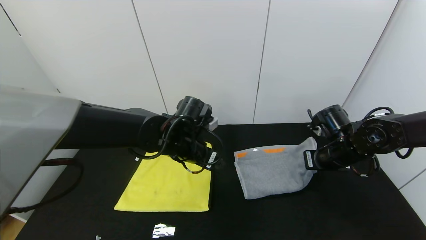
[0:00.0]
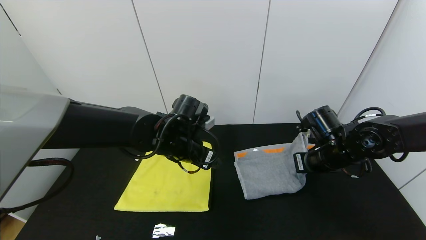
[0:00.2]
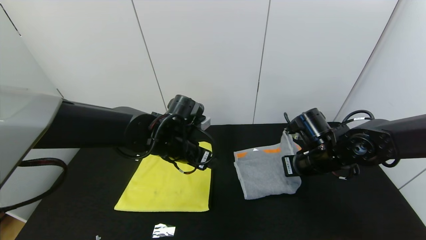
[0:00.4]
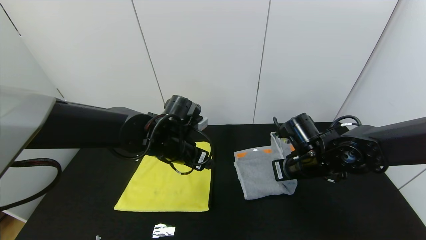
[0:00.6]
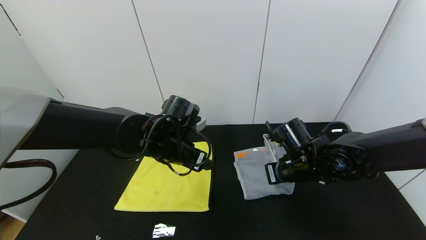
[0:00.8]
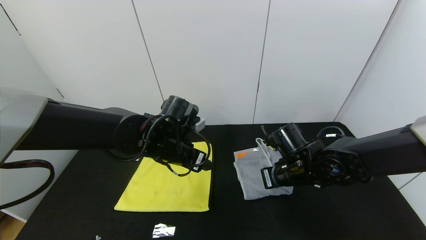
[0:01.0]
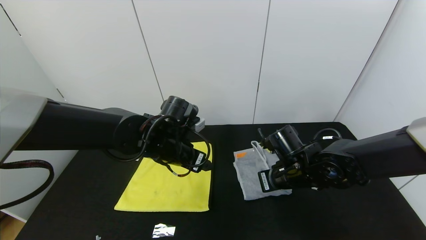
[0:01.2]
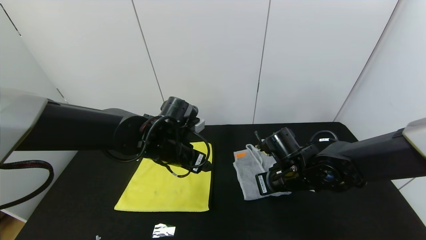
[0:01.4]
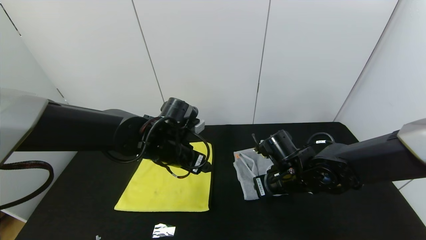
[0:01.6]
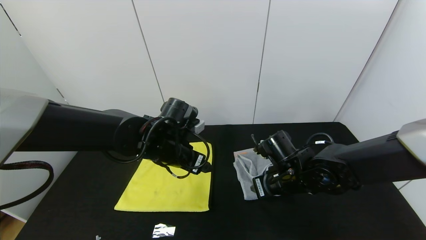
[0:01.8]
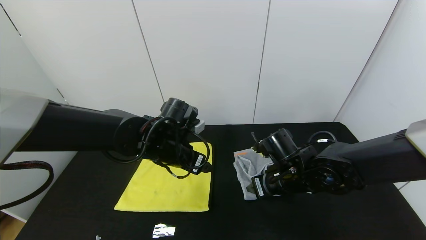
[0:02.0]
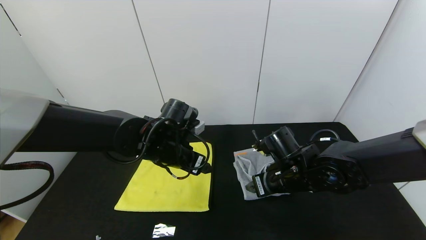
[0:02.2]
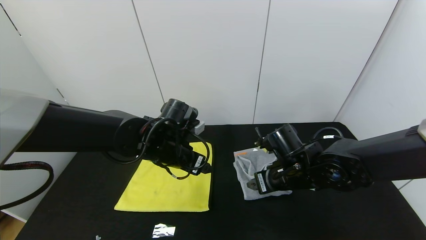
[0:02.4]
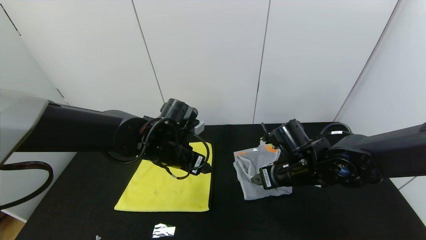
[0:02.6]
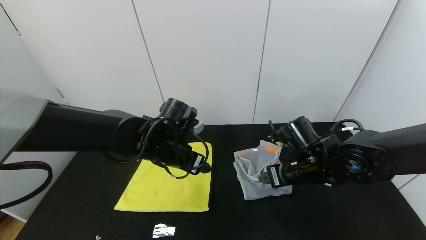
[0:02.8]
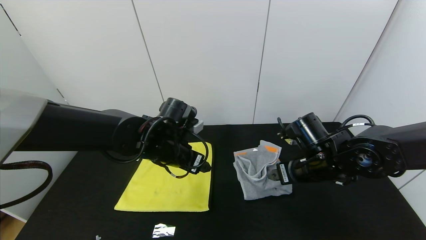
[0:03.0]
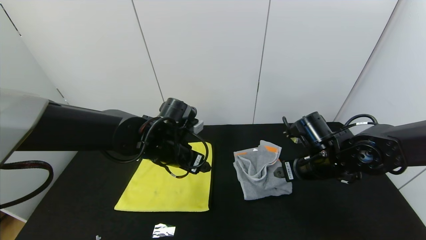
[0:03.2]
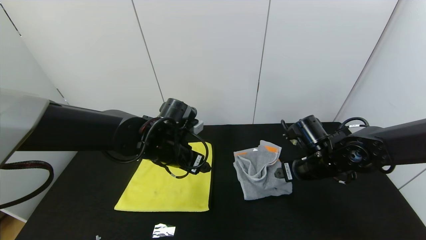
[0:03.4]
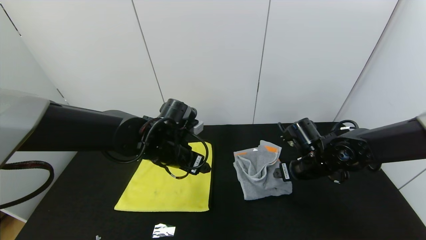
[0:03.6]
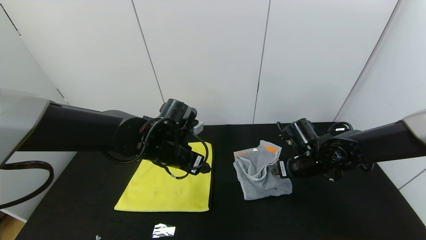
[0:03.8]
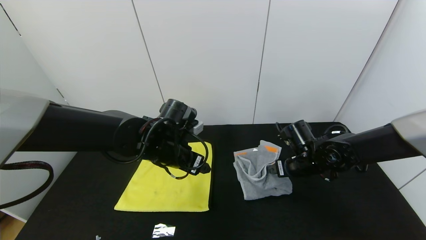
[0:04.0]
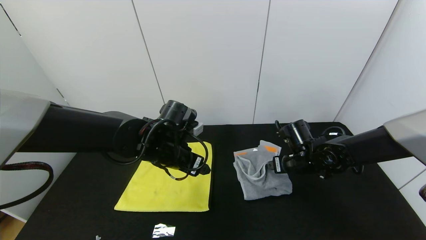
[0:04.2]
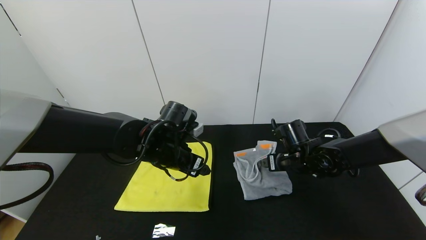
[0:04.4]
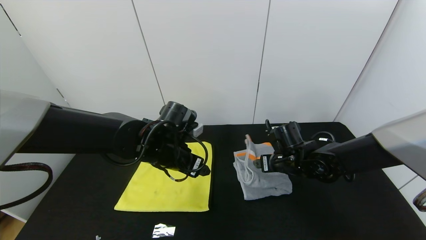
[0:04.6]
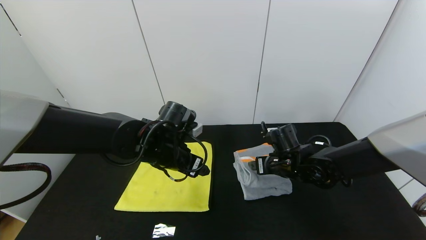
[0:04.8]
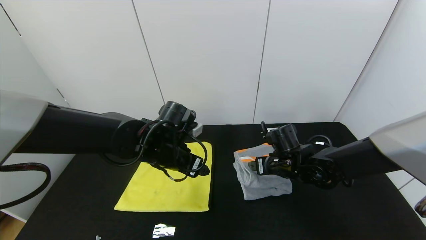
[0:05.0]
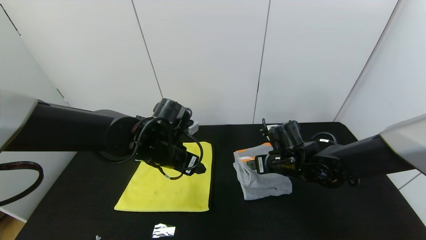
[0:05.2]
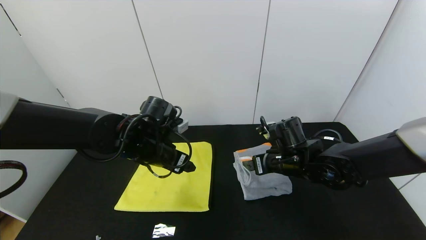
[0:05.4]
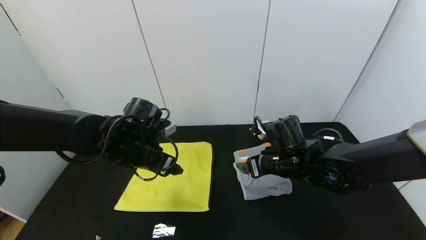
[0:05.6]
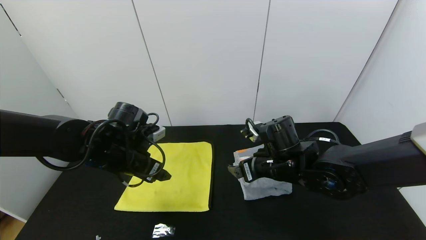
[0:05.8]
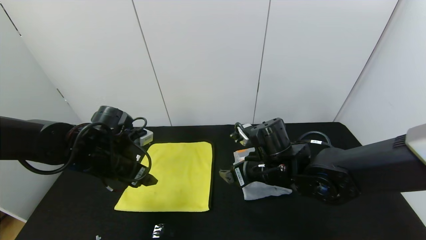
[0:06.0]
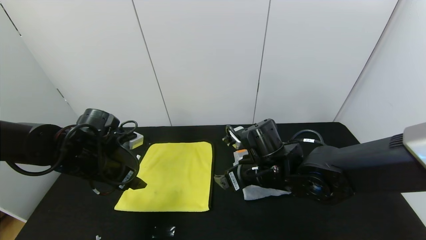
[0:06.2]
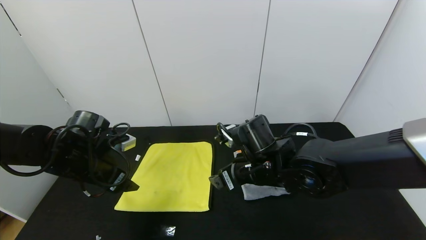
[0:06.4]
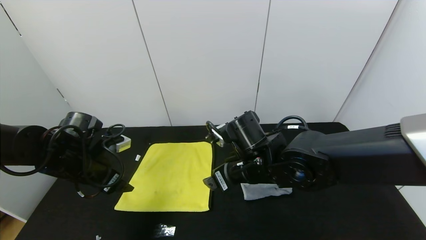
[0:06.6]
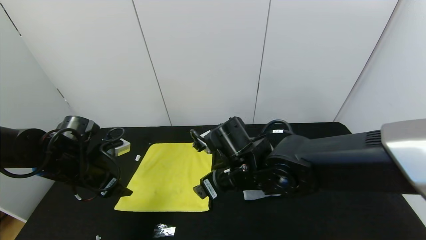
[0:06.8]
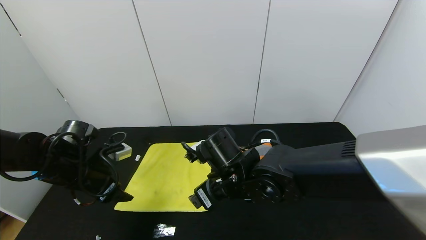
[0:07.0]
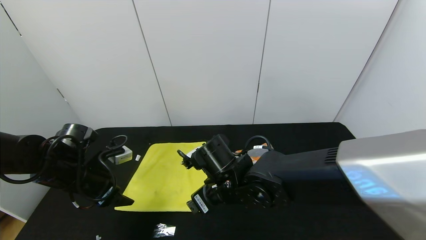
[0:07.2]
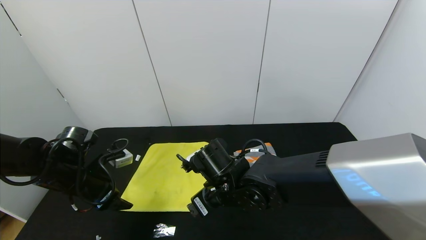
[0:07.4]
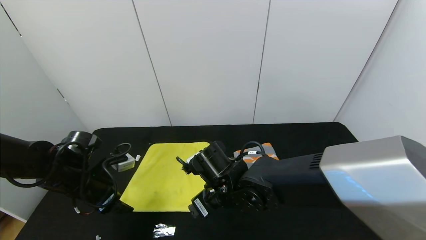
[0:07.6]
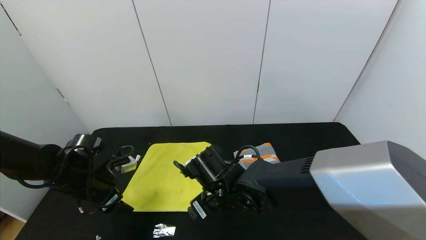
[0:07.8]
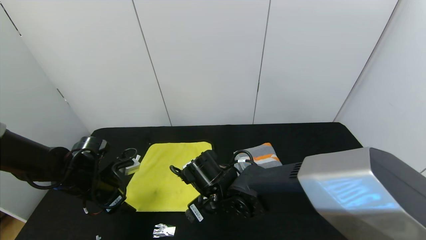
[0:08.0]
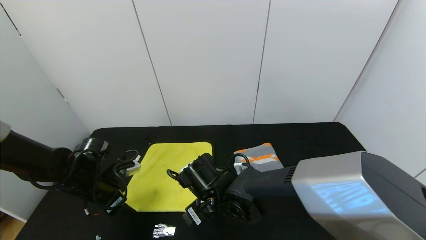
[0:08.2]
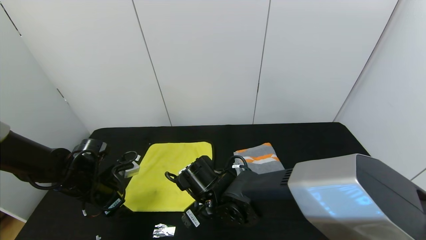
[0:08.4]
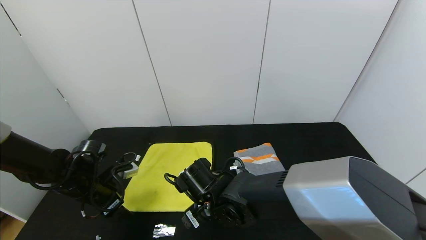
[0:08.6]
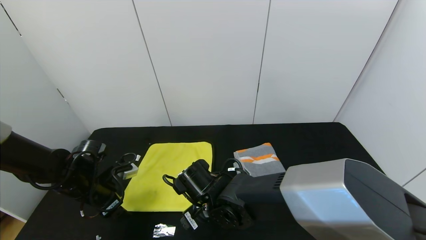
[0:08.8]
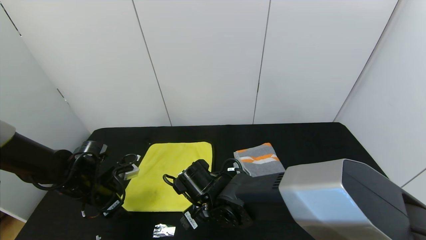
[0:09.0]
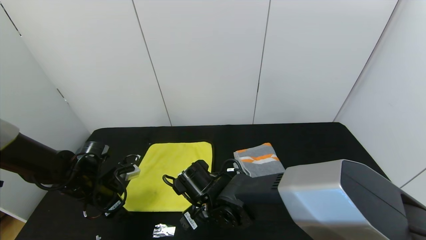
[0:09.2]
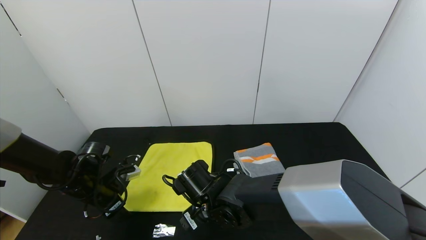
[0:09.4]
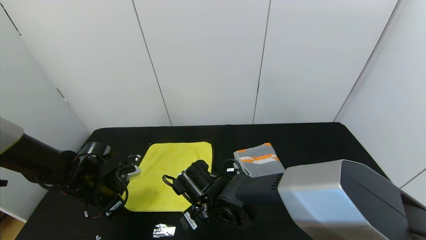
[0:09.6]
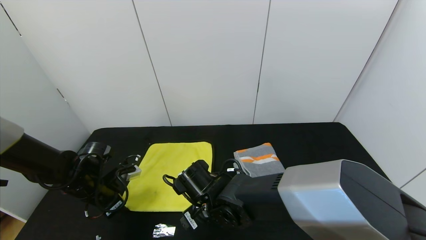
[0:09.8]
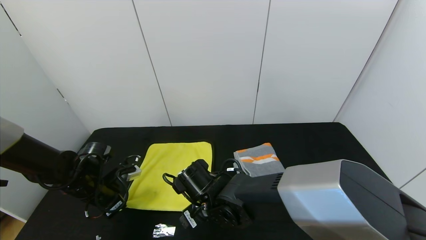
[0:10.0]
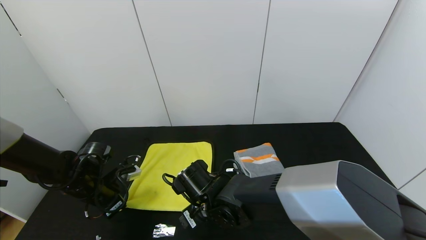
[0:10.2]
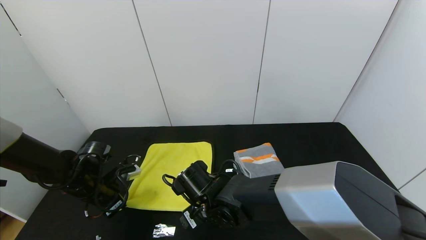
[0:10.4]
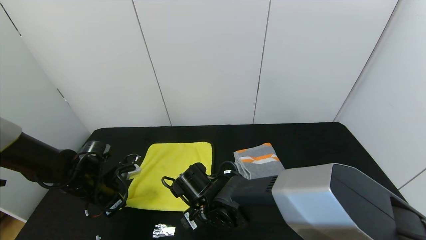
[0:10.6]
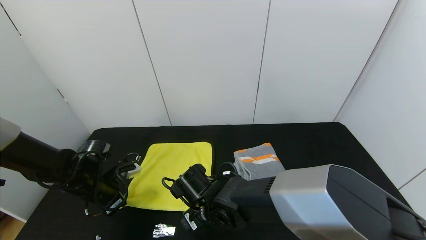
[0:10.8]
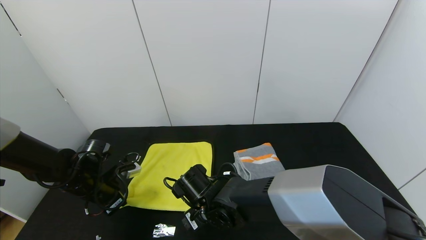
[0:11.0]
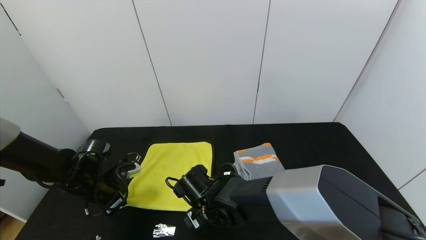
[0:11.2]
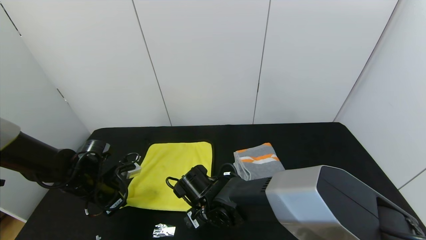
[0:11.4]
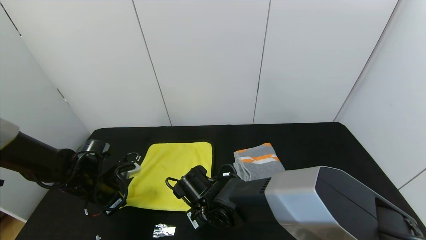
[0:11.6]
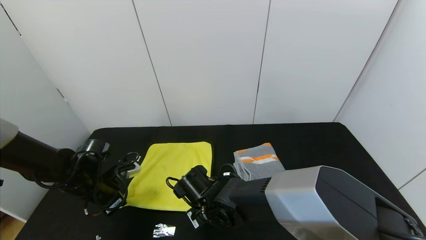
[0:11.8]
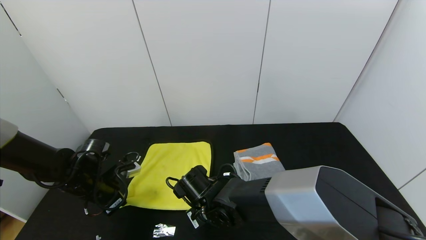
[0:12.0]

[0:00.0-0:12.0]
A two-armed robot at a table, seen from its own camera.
Task of the whole recording: Use the gripper to fold the yellow towel and grey towel in half twice,then put the yellow towel on the grey towel.
Step, 0:00.0 to 0:05.2: Fold the gray towel from right to left with right gripper.
0:00.0 to 0:01.6: The right gripper travels to the left by about 10 cm, and opens its fingers.
0:01.6 to 0:03.0: The right gripper changes place by about 5 cm, and opens up.
0:03.0 to 0:04.4: The right gripper moves forward and downward, some 10 cm.
0:04.4 to 0:06.0: The right gripper heads to the left and backward, covering some 10 cm; the left gripper goes approximately 10 cm to the left.
0:06.0 to 0:07.6: The right gripper heads to the left, covering some 10 cm. The left gripper shifts some 10 cm to the left and downward.
0:07.6 to 0:09.0: The right gripper changes place by about 5 cm.
0:09.0 to 0:10.4: The left gripper closes.
0:10.4 to 0:12.0: The right gripper closes.

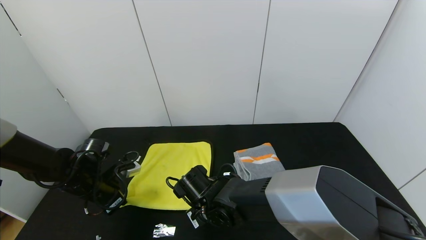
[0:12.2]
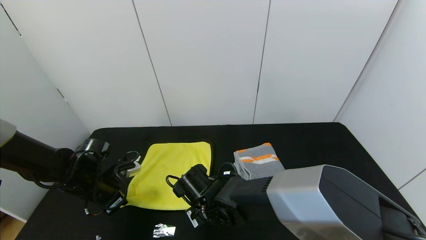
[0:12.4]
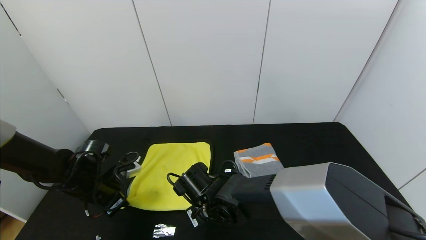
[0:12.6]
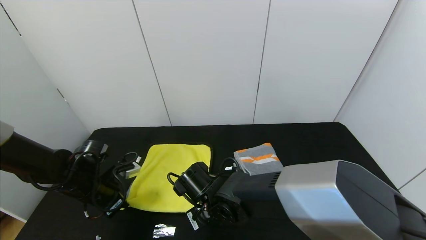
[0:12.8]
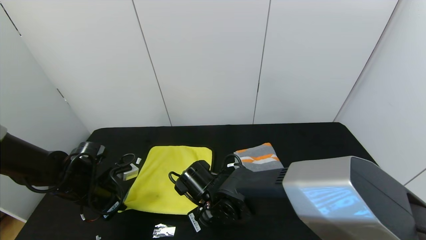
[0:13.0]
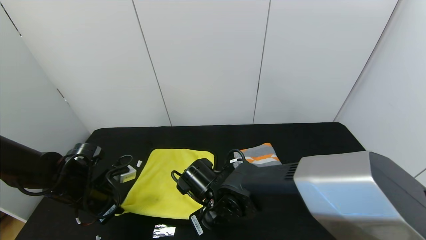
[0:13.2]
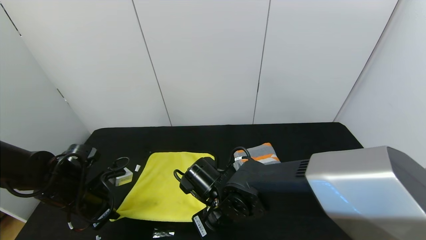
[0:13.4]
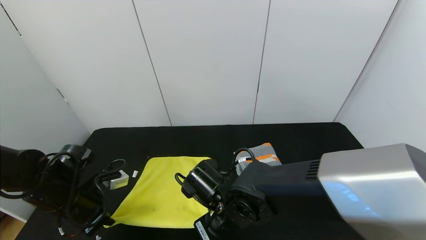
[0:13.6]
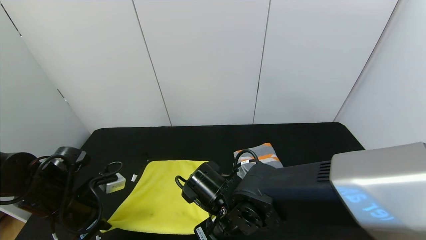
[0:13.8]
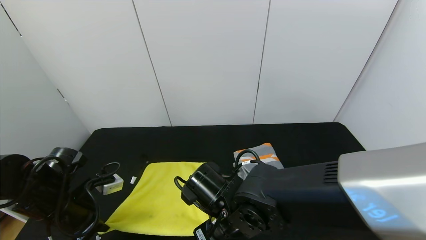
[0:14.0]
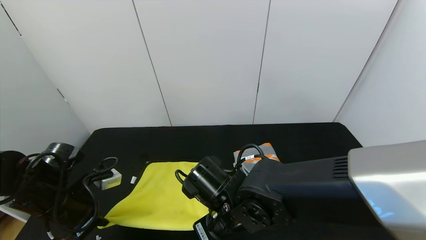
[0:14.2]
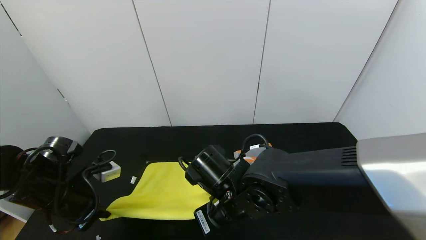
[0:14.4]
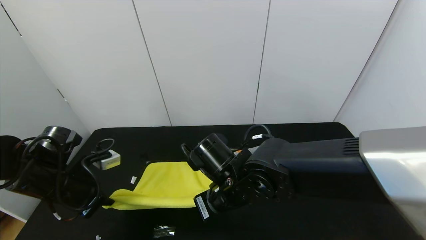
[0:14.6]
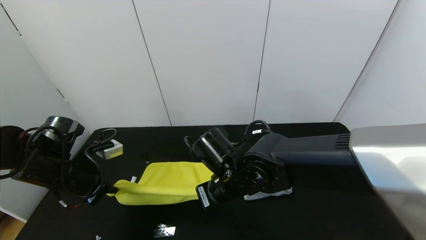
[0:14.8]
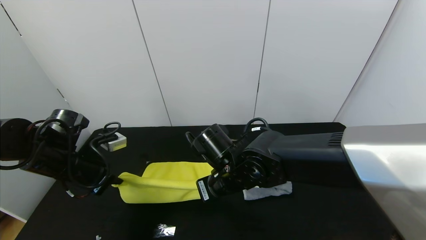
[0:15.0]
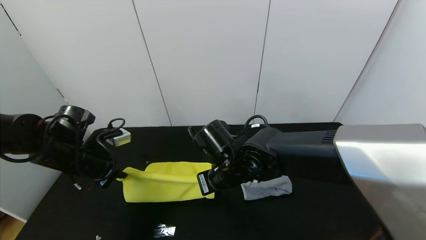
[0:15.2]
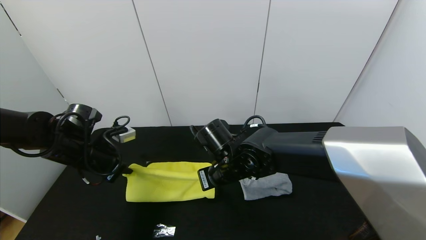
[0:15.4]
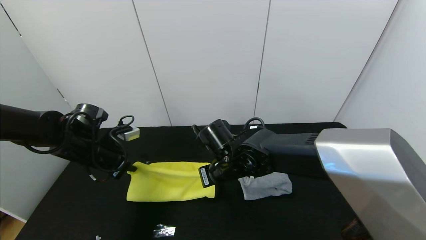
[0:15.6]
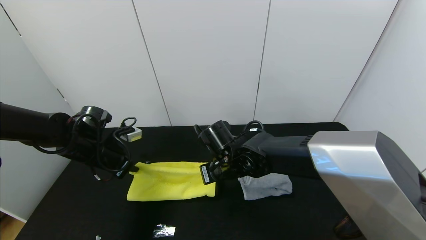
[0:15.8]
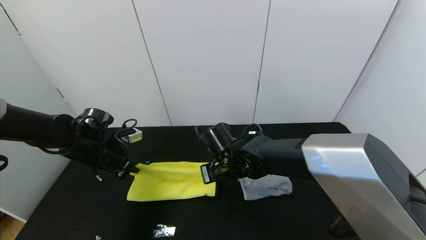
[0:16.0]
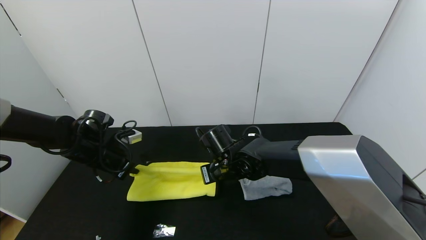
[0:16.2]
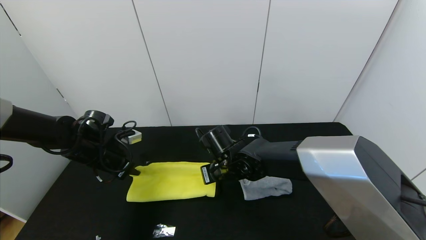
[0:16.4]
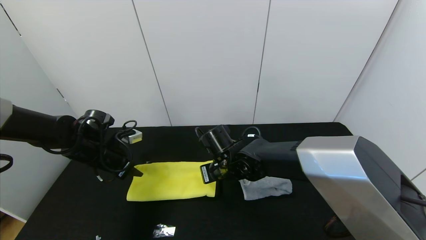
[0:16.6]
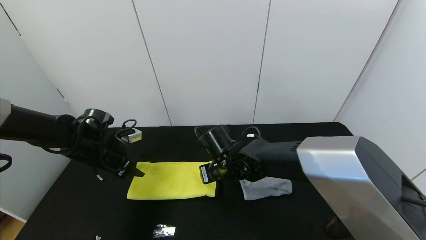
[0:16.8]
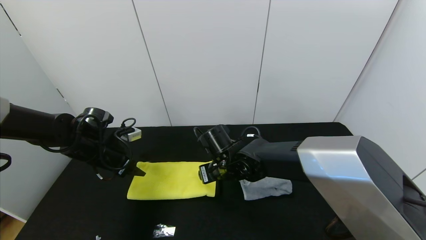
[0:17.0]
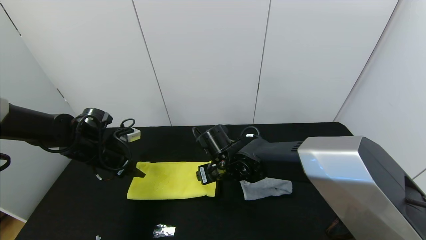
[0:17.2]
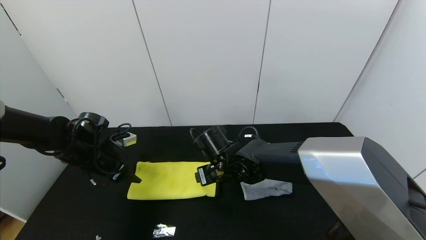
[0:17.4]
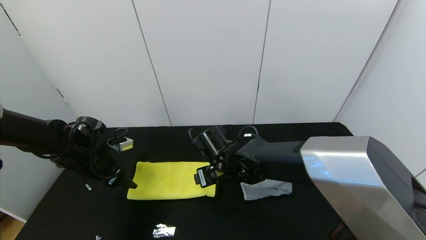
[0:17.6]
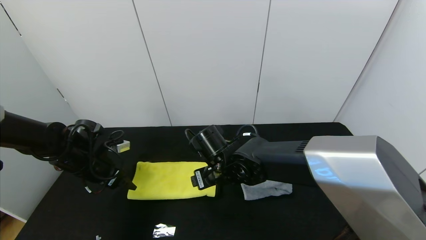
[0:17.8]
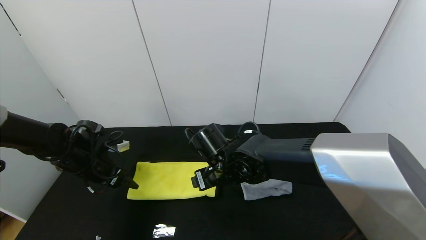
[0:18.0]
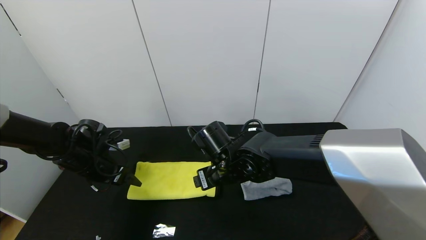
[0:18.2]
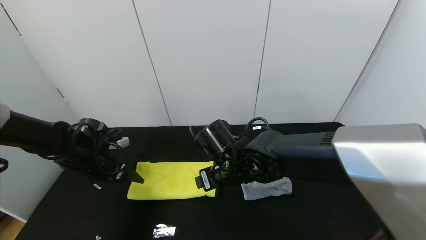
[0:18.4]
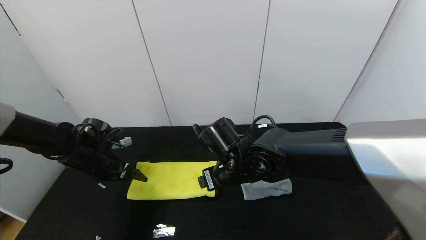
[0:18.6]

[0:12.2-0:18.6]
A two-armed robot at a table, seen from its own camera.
Task of the whole recording: Use the gripper to fold the yellow towel and grey towel in half twice,then put the yellow towel on the grey towel.
Step, 0:12.2 to 0:16.8: Fold the yellow towel upwards with the left gripper.
0:12.2 to 0:13.8: The right gripper heads upward and backward, covering about 10 cm. Meanwhile the left gripper moves backward, approximately 5 cm.
0:13.8 to 0:15.4: Both grippers travel together forward, some 10 cm.
0:15.4 to 0:17.0: The right gripper opens. Meanwhile the left gripper opens its fingers.
0:17.0 to 0:18.6: The right gripper ends up about 5 cm from where it was.
